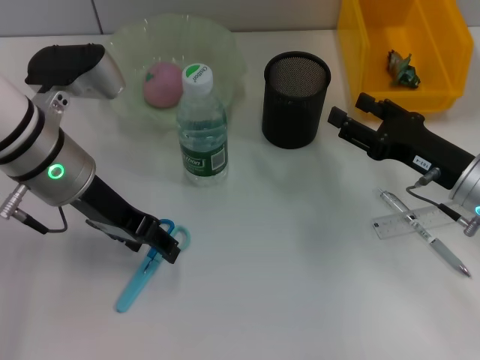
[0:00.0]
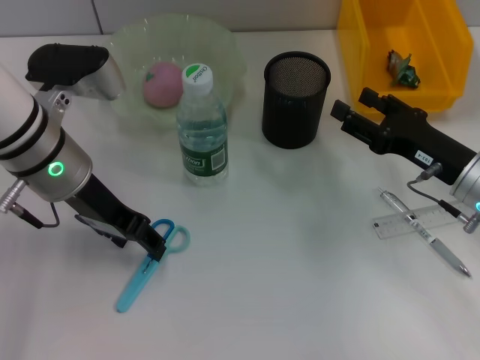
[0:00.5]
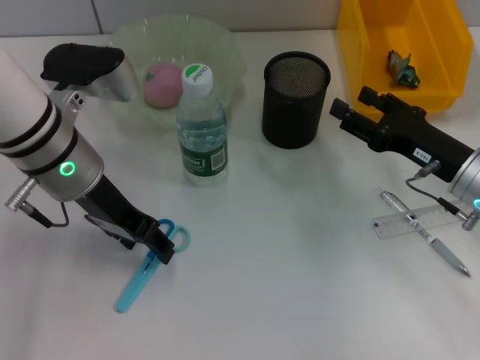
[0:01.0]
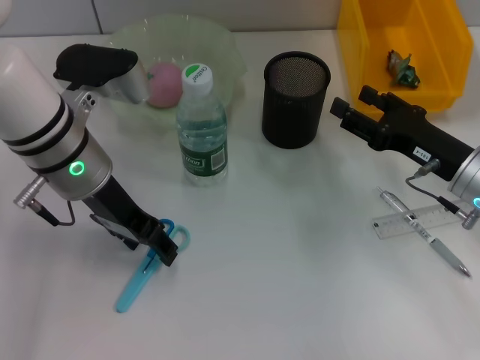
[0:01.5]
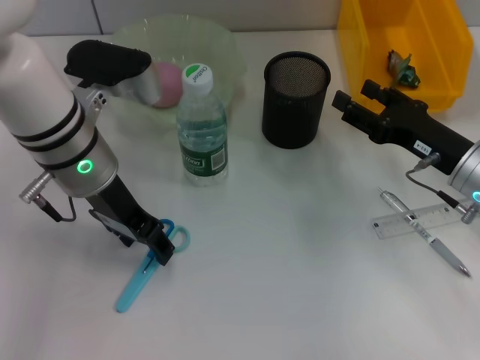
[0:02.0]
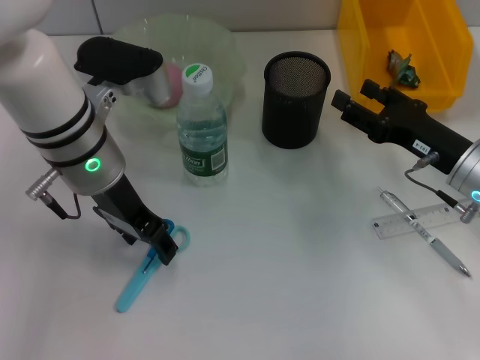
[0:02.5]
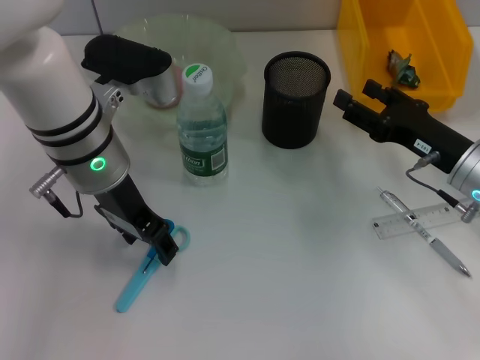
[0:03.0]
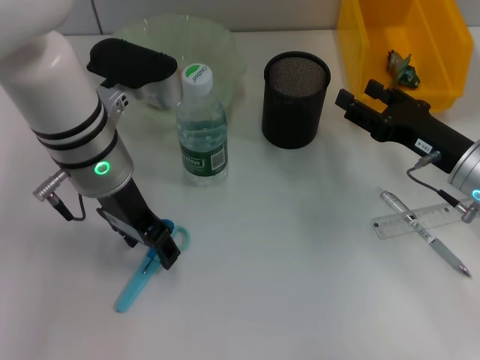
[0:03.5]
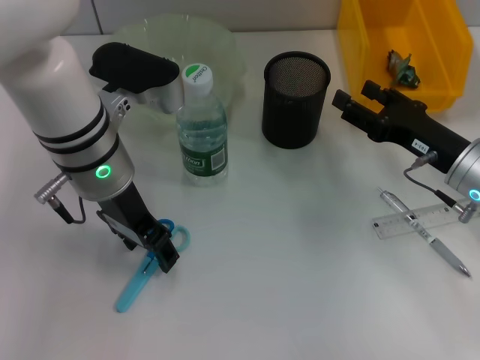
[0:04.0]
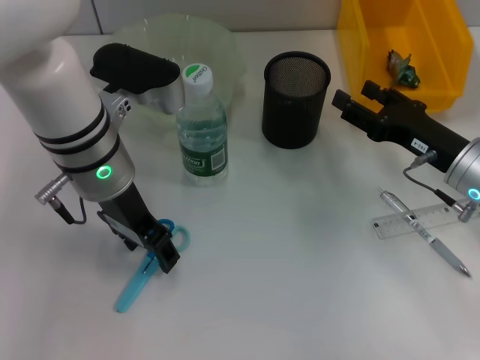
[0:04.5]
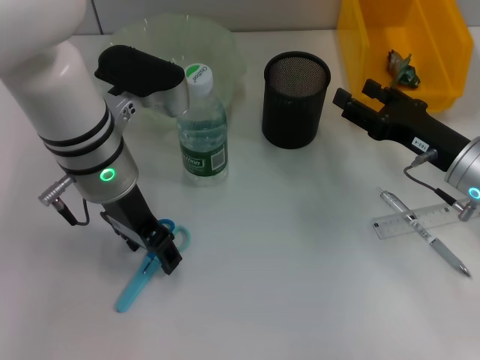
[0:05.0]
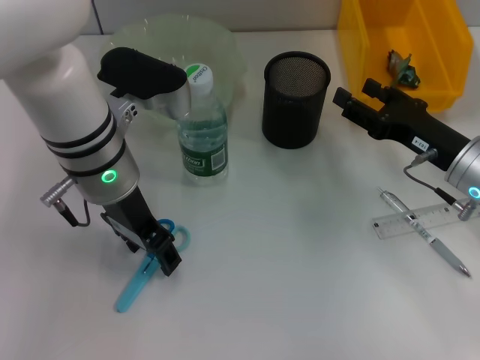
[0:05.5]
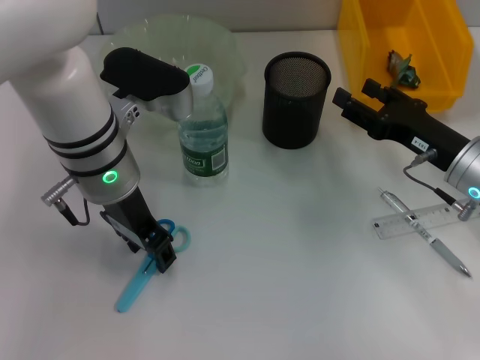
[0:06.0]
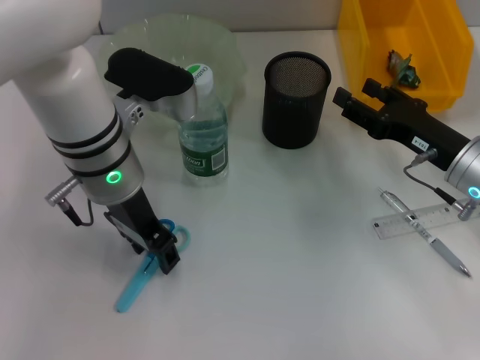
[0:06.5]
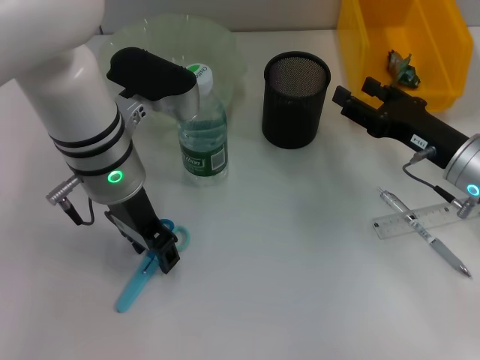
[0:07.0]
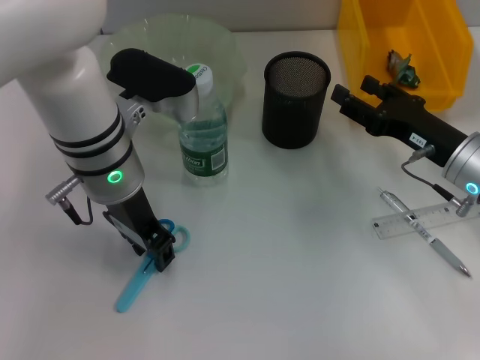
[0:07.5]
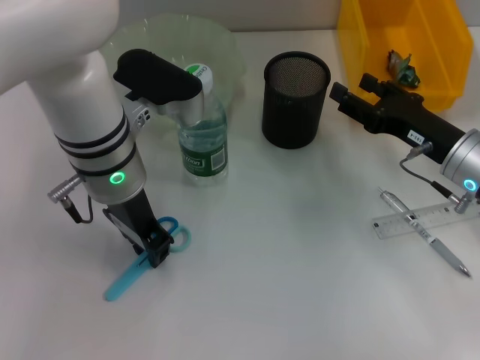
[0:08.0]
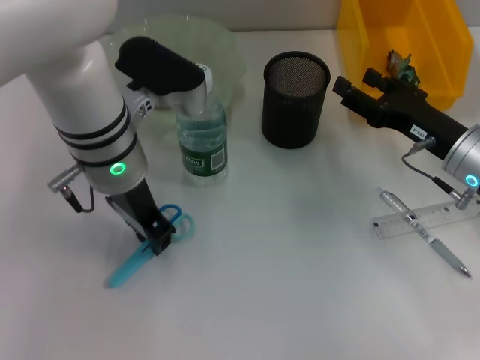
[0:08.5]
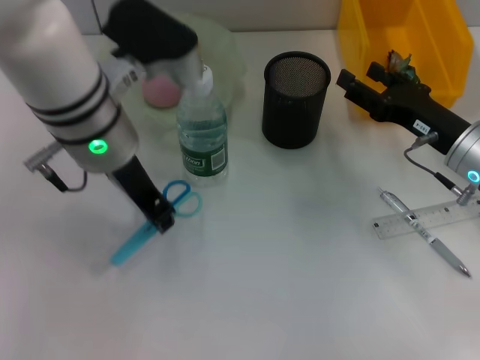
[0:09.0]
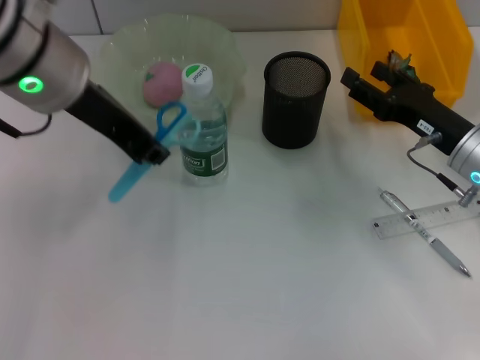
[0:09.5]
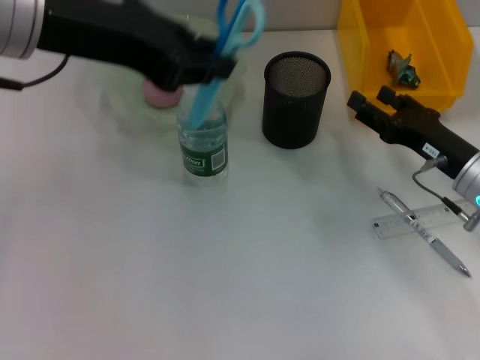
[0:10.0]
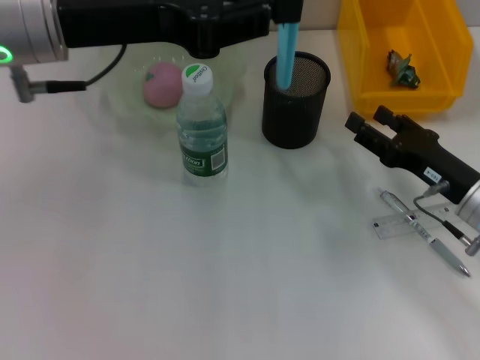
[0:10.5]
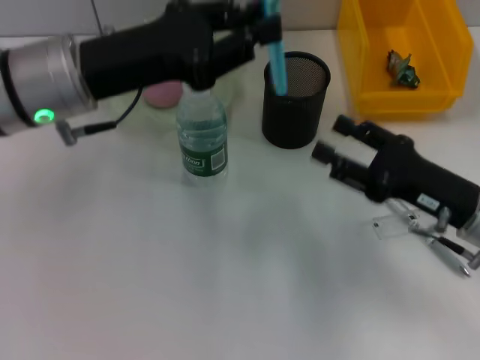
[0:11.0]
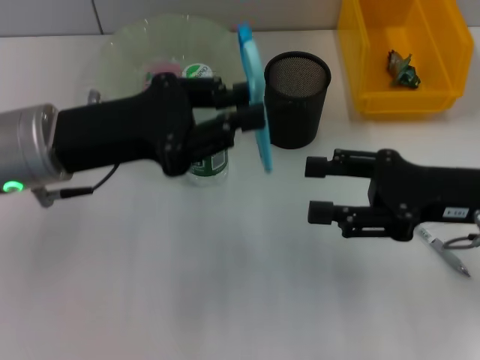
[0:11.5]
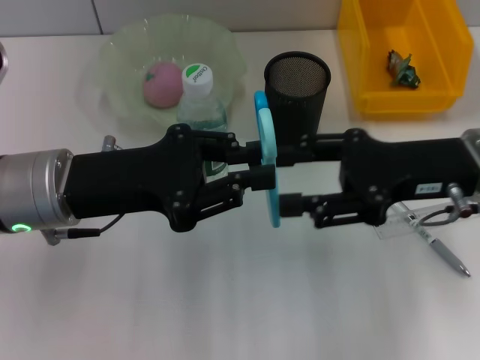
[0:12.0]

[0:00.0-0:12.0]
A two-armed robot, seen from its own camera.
Step, 0:00.0 to 0:08.0: Grab the blue scissors with the left hand.
0:00.0 to 0:04.0: The grippers stay close to where they were, moving slightly.
0:04.0 to 0:06.0: Both grippers stay about where they are.
0:06.0 to 0:08.0: The left gripper closes.
0:08.0 to 0:10.0: The left gripper goes about 15 cm upward.
0:10.0 to 0:12.0: The left gripper moves downward, approximately 15 cm. Meanwhile the right gripper heads upward, covering approximately 10 cm.

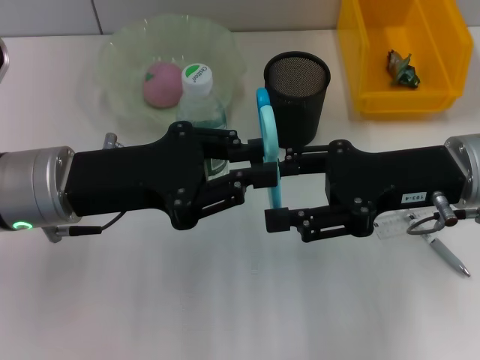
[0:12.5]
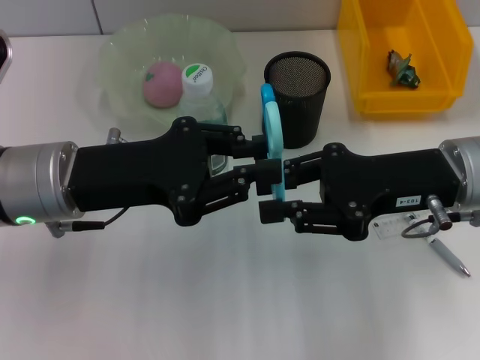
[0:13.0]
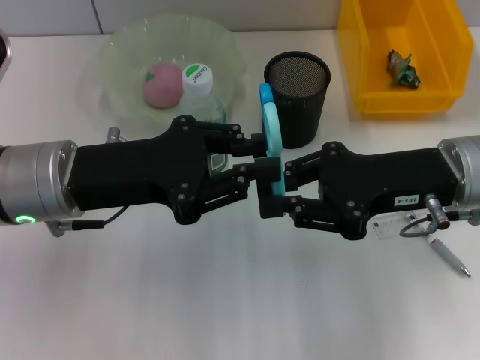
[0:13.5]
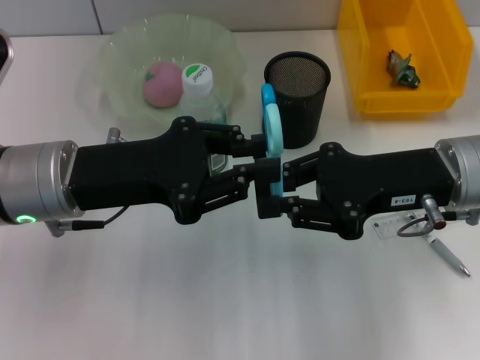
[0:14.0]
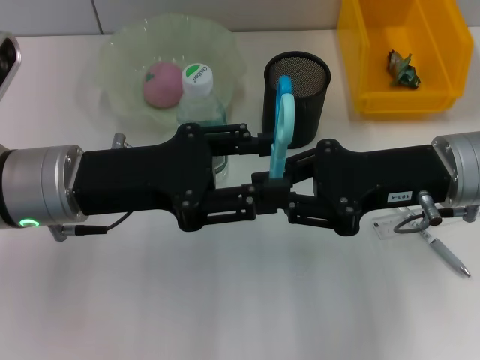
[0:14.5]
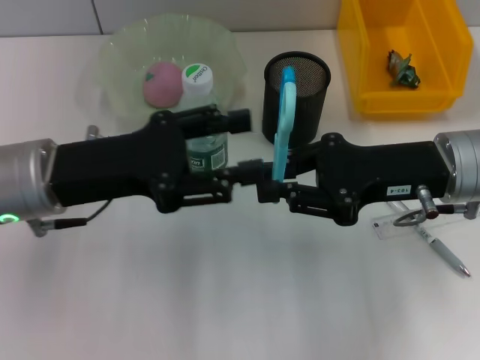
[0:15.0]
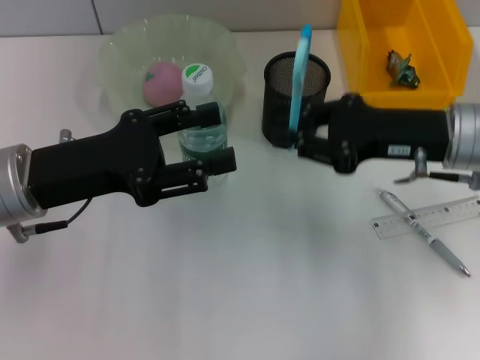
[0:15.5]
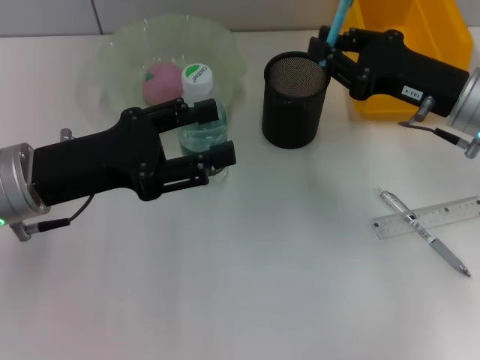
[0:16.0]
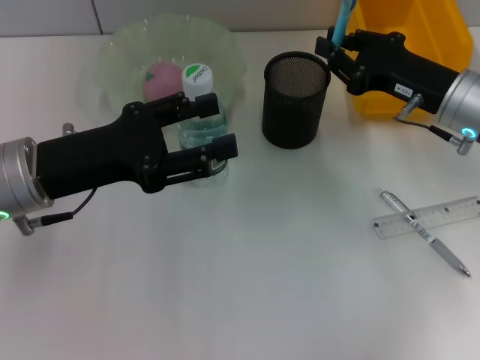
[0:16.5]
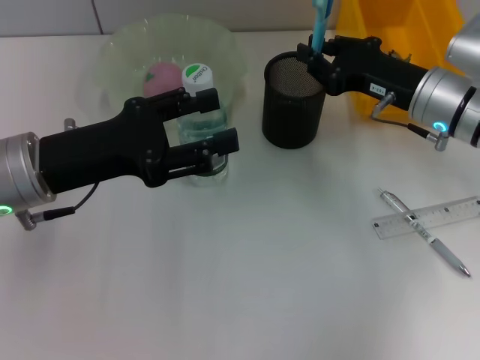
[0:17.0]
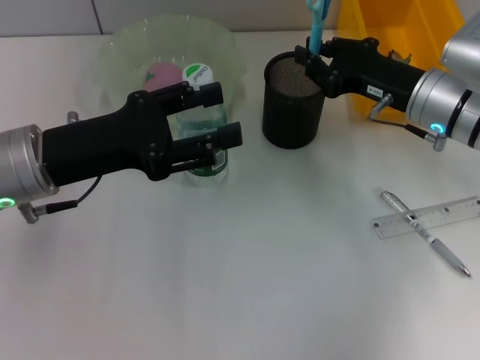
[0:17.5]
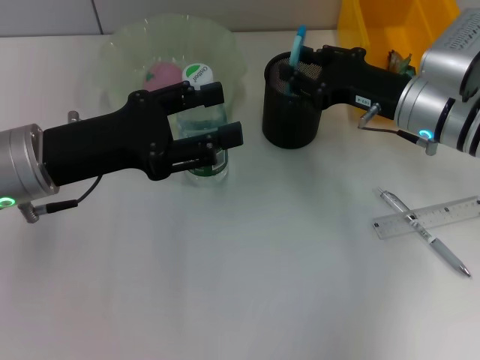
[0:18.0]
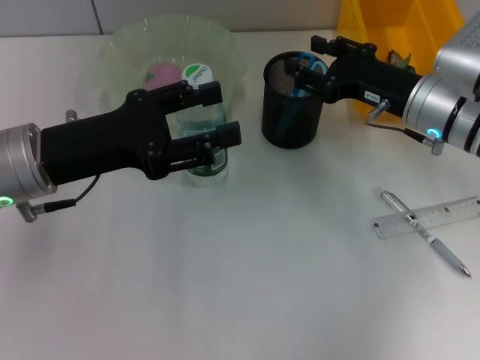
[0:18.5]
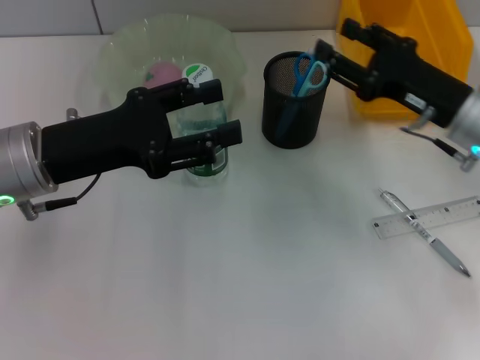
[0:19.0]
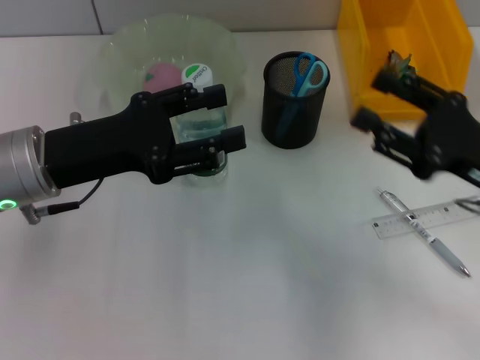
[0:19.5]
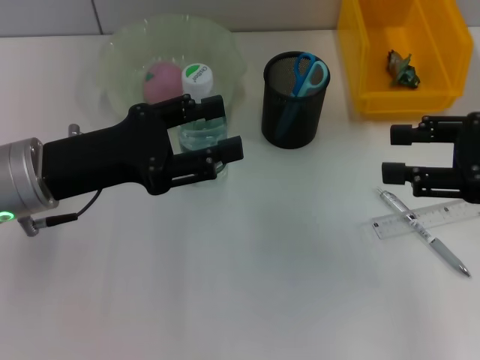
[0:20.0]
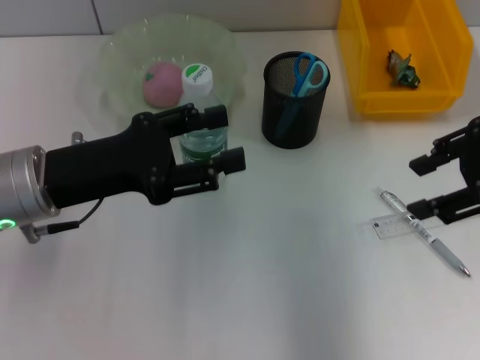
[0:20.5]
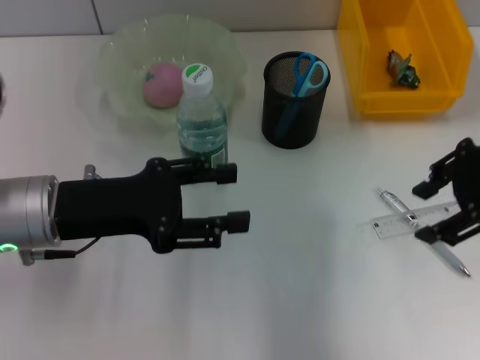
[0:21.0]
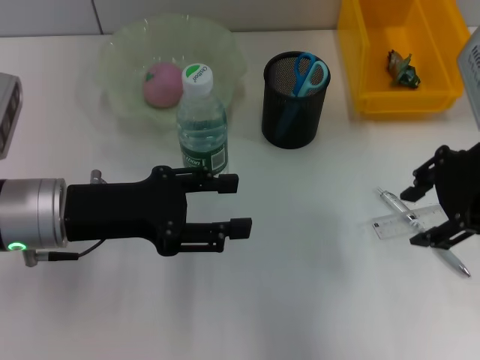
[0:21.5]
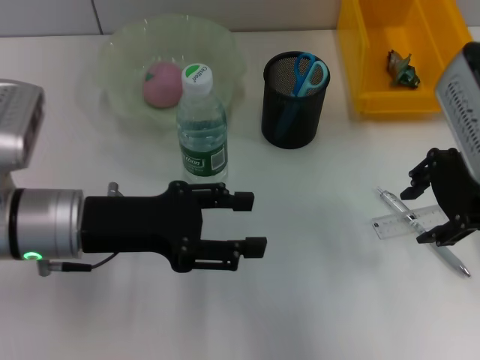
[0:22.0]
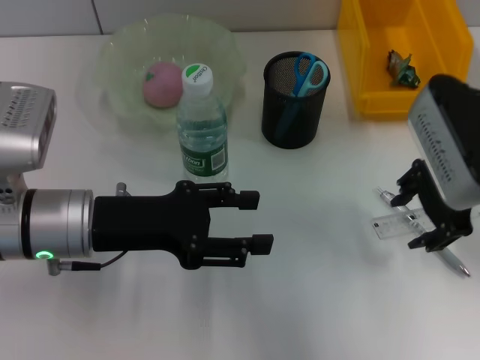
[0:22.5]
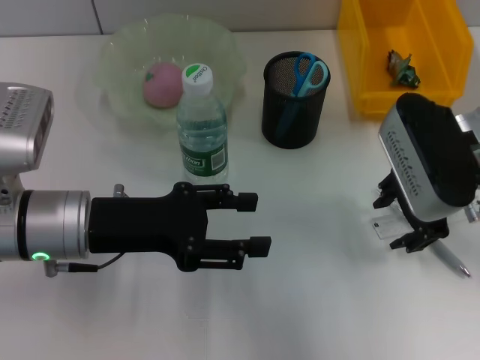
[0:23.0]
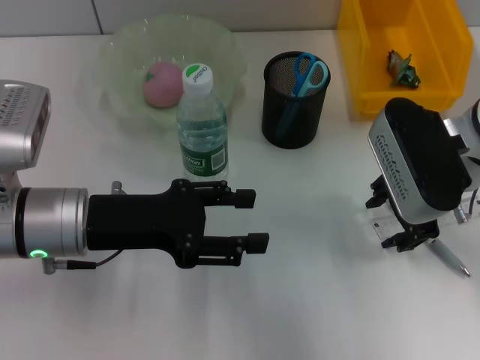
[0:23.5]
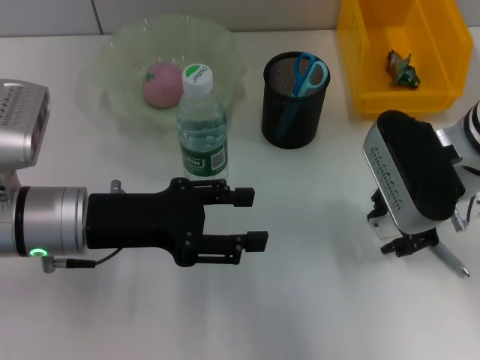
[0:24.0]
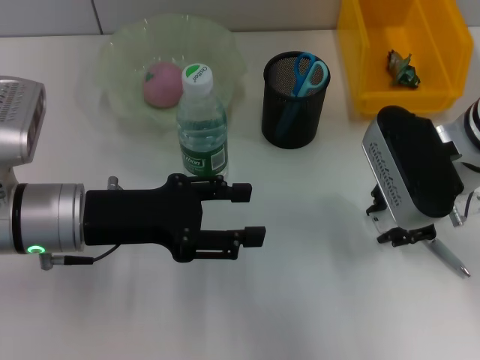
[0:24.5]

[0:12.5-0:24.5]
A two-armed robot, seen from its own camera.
Step, 0:12.5 to 0:14.5: Pass the blue scissors from the left hand to the right hand.
Step, 0:15.0 to 0:18.0: Place the blue scissors into the pen holder with the right hand.
Step, 0:18.5 to 0:24.5: Grab the ruler with the right hand.
0:12.5 to 0:14.5: The right gripper closes up. The left gripper opens its fingers.
0:14.5 to 0:16.5: The left gripper opens, while the right gripper heads forward, covering roughly 5 cm.
0:16.5 to 0:18.5: The right gripper opens its fingers.
0:18.5 to 0:20.5: The right gripper shifts approximately 15 cm upward, backward and to the right.
0:20.5 to 0:22.5: The right gripper shifts approximately 10 cm to the left and downward.
0:22.5 to 0:24.5: The right gripper closes up.

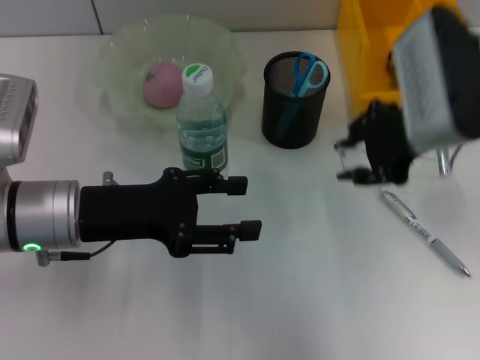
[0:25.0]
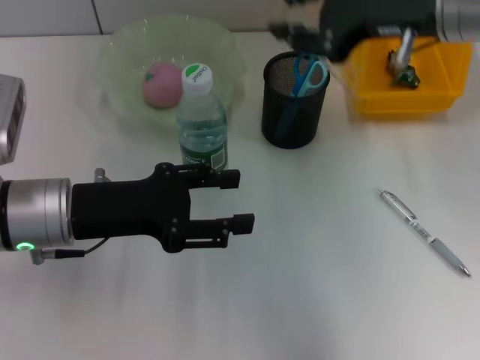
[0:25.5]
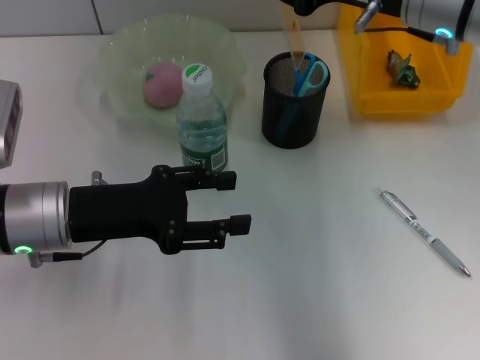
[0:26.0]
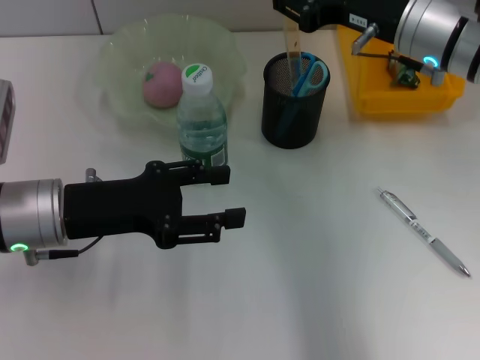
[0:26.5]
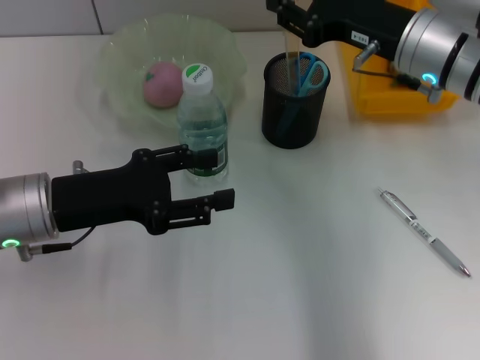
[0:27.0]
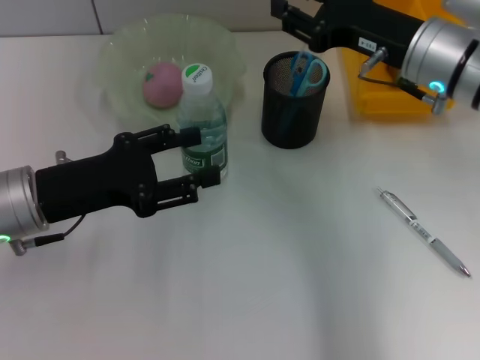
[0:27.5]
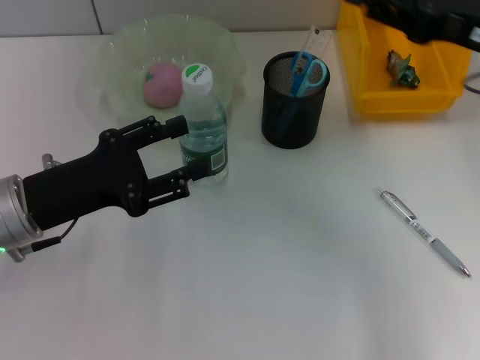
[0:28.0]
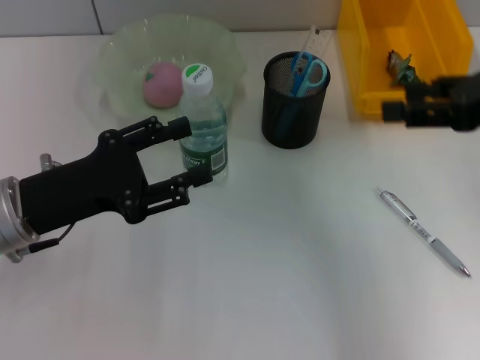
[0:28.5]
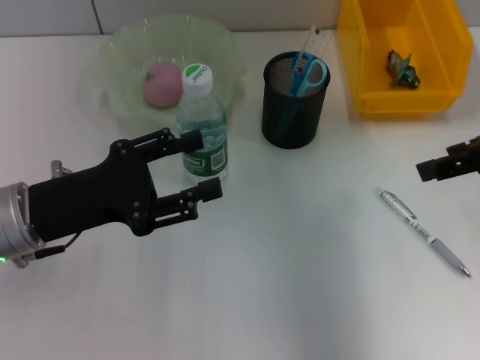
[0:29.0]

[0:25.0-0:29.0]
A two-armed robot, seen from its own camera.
Step, 0:25.0 to 0:27.5: Place the ruler into the pen holder with the right hand.
0:25.0 to 0:27.0: The right gripper ends up about 5 cm from where it was.
0:27.0 to 0:29.0: The right gripper heads to the right, backward and upward, covering about 15 cm, and opens its fingers.
